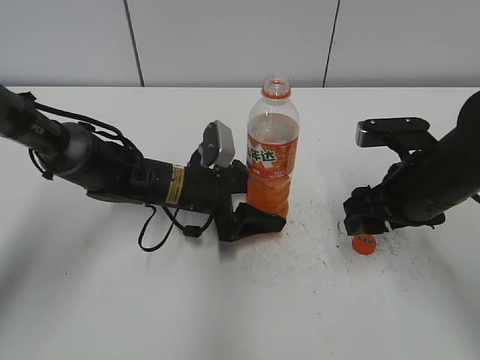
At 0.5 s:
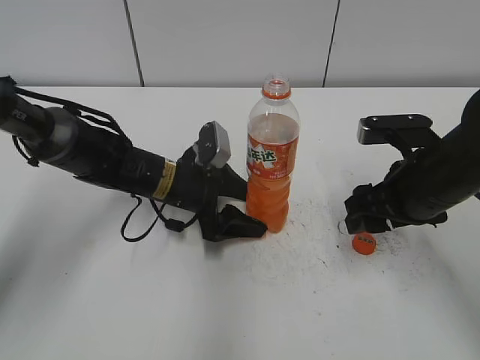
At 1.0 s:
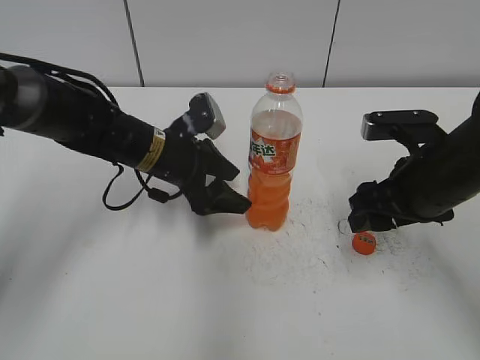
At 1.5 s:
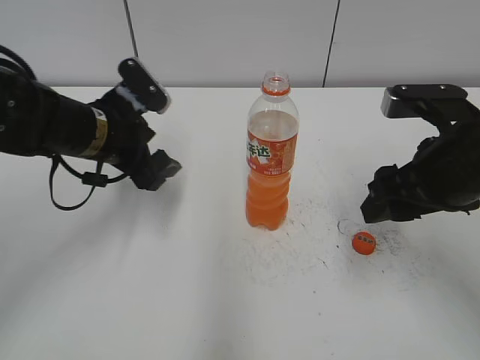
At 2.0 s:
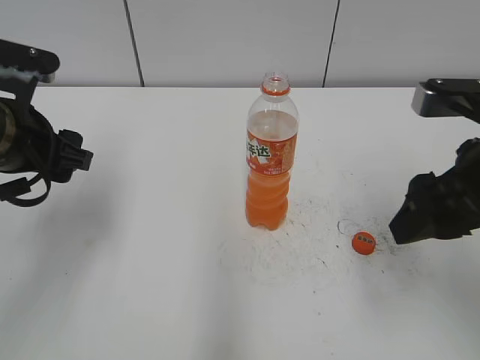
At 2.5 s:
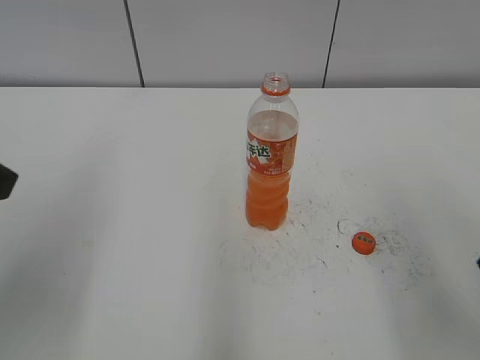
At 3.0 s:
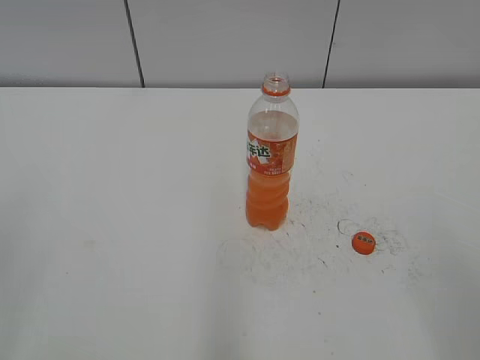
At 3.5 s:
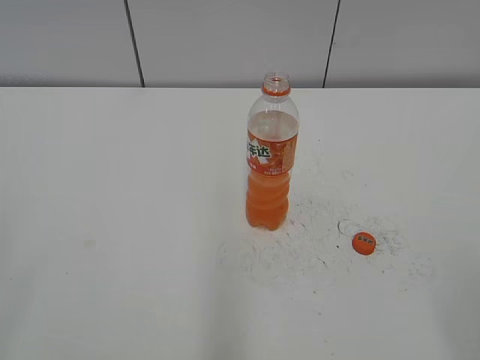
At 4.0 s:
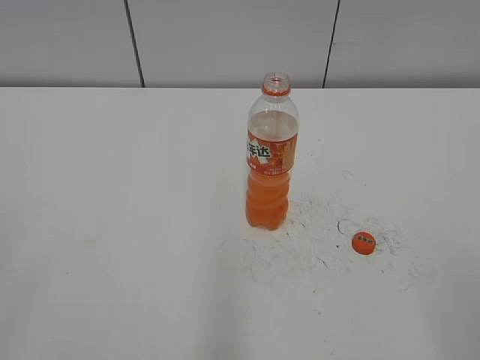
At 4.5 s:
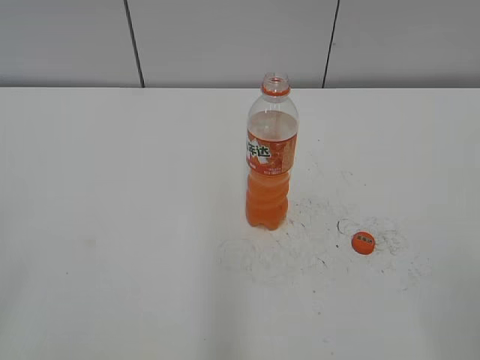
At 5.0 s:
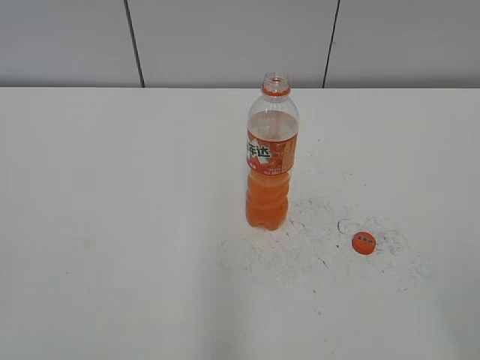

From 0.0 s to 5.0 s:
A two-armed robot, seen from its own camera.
Step, from 0.5 s to 1.0 s: Place the Mirinda with the left hand.
From 0.0 s to 2.5 s: The left gripper shifts approximately 35 cm upward, backward and to the left. Meanwhile the right gripper is displaced upward and backward by about 20 cm.
From 2.5 s to 5.0 s: The left gripper moves backward and to the left, approximately 20 cm. Meanwhile the right gripper travels backward by roughly 15 cm.
